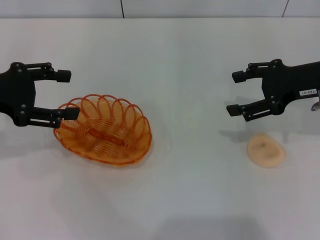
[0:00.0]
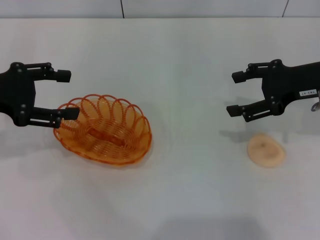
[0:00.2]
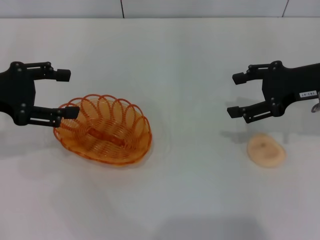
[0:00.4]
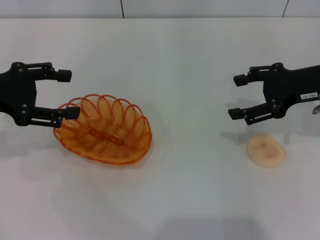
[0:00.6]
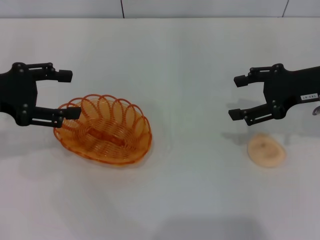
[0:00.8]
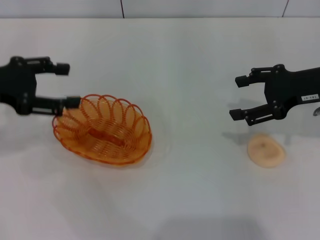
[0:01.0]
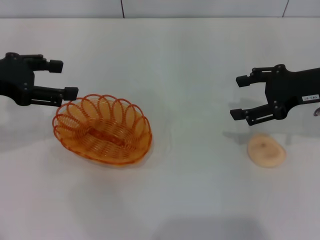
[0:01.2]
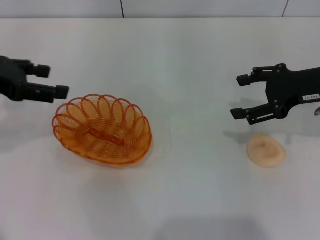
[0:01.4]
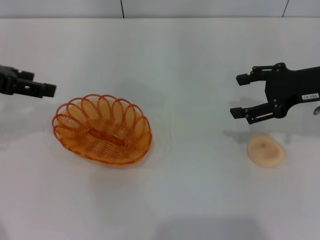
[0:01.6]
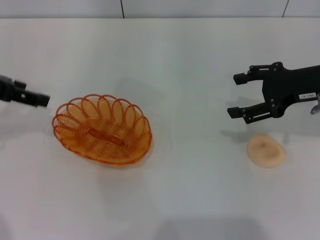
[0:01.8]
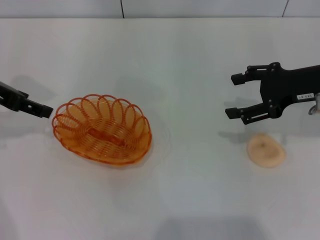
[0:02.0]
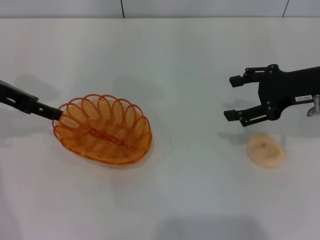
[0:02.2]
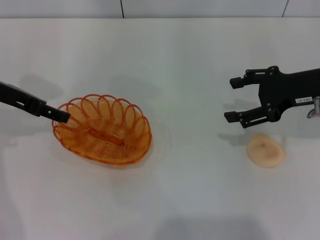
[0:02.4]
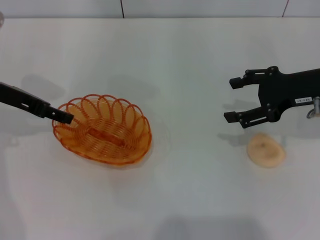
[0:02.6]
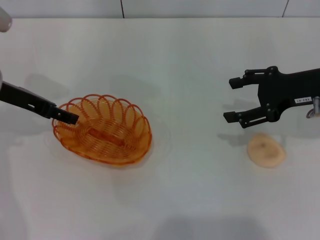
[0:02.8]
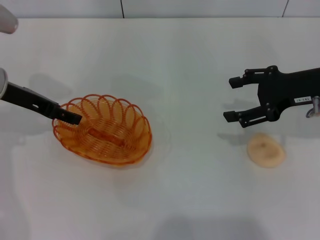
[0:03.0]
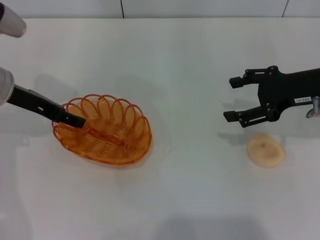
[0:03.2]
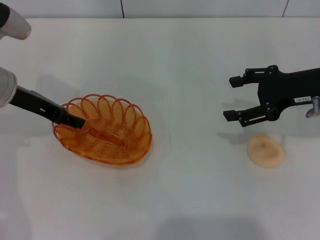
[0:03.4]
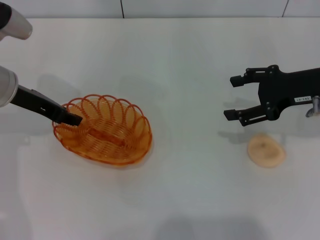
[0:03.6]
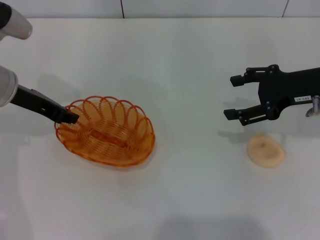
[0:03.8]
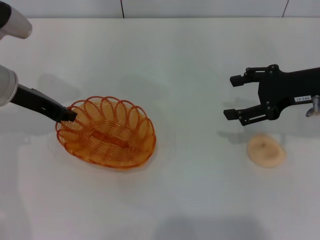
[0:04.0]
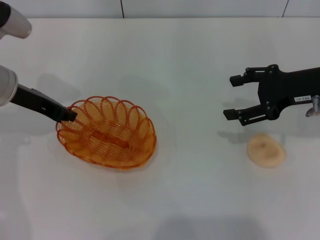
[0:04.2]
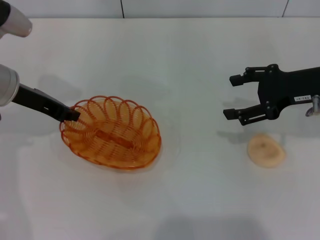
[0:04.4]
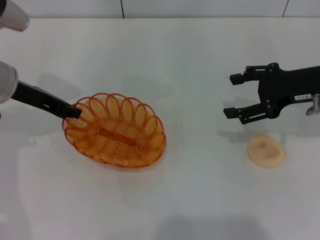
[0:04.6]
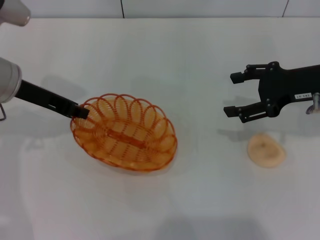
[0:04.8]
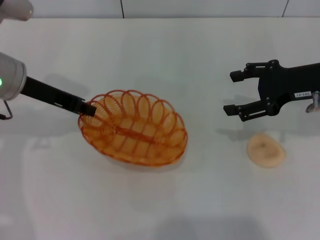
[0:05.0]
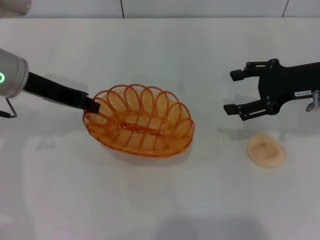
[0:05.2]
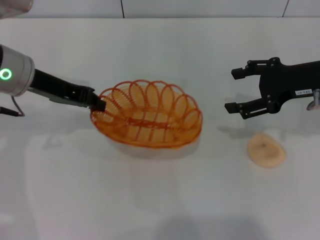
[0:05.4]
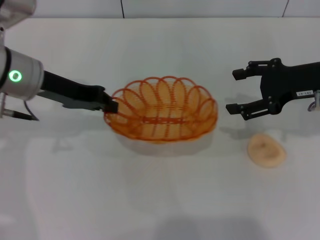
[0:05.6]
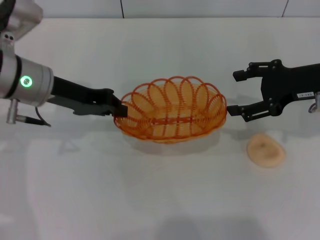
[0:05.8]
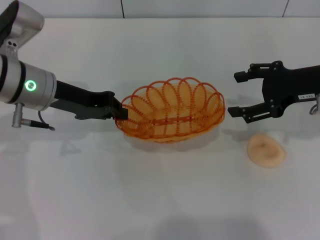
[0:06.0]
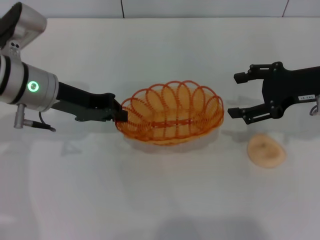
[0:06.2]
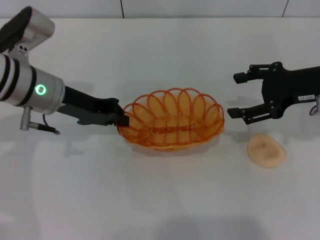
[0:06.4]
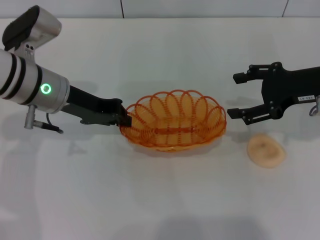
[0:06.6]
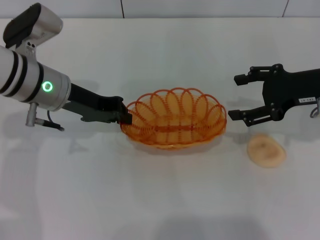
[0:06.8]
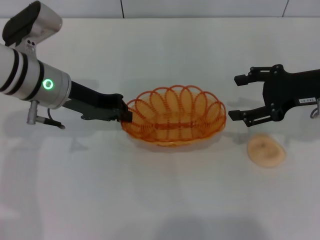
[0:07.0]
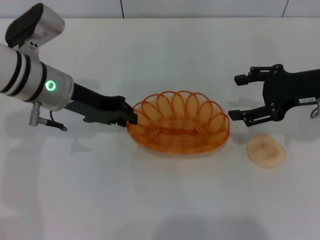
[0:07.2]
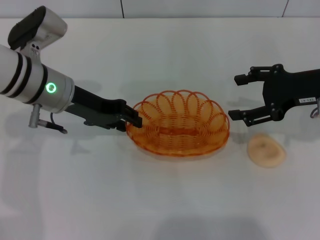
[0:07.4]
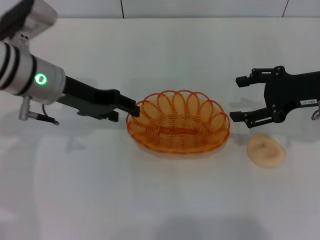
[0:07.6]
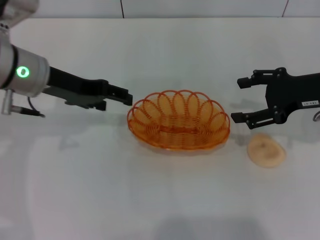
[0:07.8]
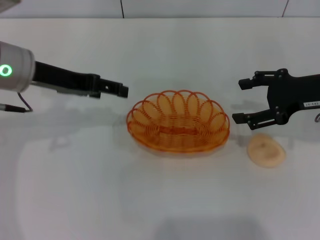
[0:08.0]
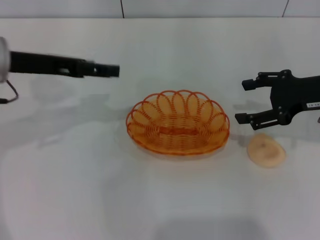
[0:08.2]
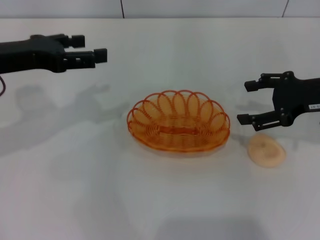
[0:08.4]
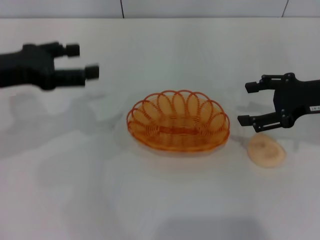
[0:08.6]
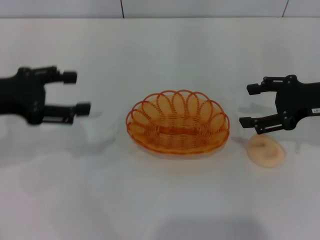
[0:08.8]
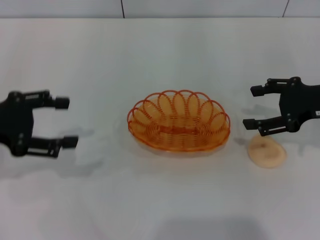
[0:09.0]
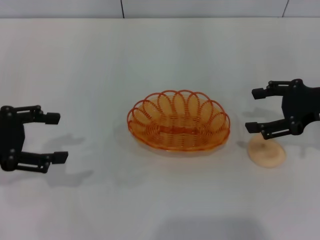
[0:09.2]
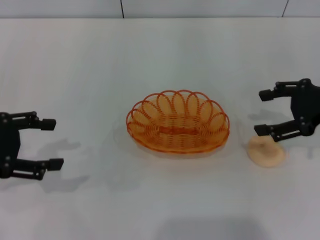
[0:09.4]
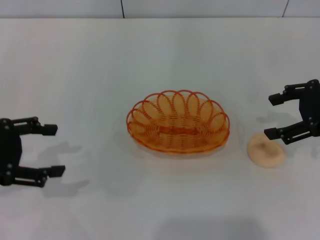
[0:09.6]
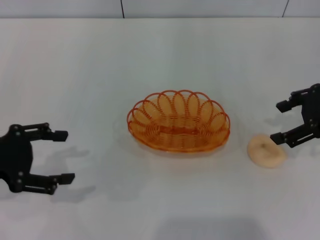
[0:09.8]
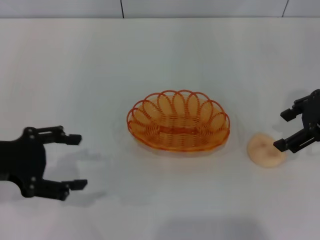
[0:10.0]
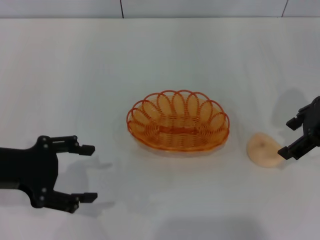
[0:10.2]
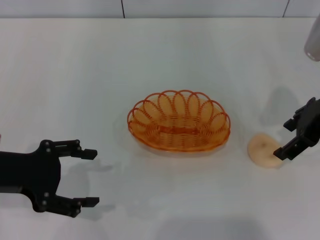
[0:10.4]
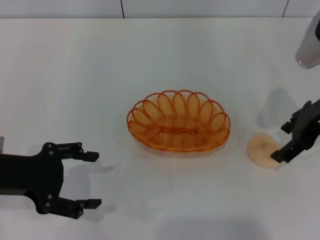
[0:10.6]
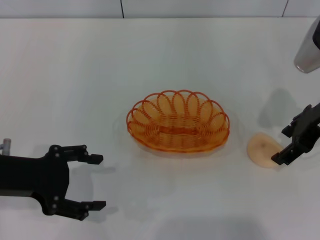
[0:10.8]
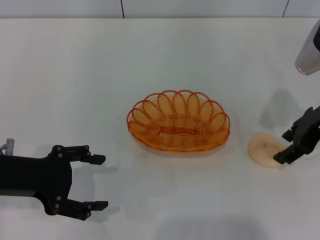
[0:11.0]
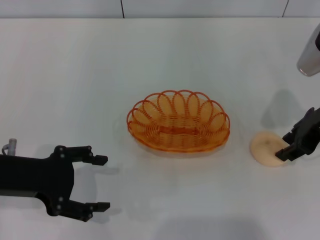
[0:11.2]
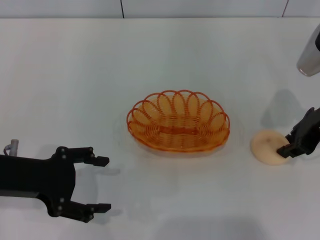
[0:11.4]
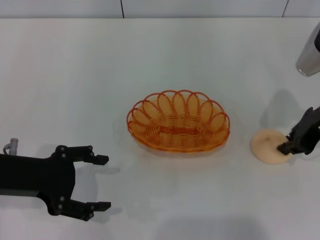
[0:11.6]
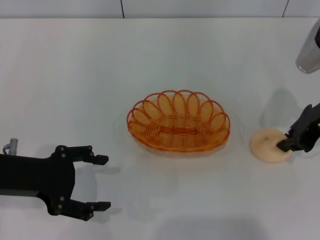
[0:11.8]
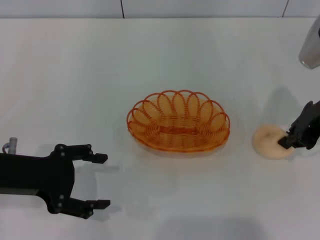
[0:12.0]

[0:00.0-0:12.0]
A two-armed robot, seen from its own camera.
Step, 0:00.0 to 0:06.0: Pick up the basket with the left gripper.
Step, 0:06.2 to 0:07.8: Place the basket in the center of view with the left gripper.
0:01.6 to 0:03.0: The left gripper heads downward, covering some 5 cm.
0:03.0 to 0:04.4: The left gripper closes its fingers.
0:06.0 to 0:07.6: The left gripper opens.
0:07.6 to 0:09.0: The left gripper travels to the left and backward by some 15 cm, and opens its fingers.
0:09.0 to 0:10.4: The right gripper ends up approximately 5 cm from where it was; the left gripper moves some 5 cm.
0:10.4 to 0:12.0: The right gripper closes its fingers.

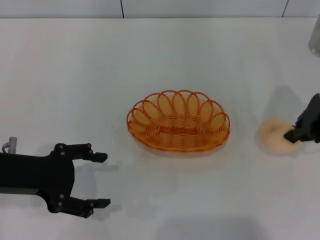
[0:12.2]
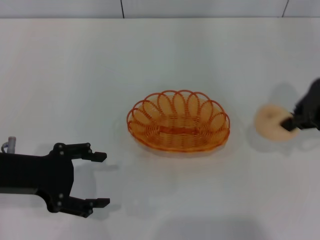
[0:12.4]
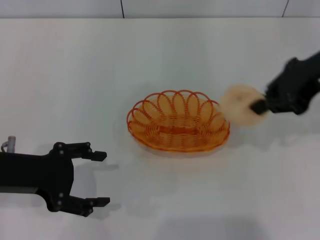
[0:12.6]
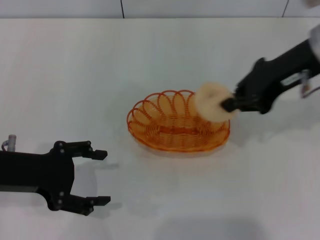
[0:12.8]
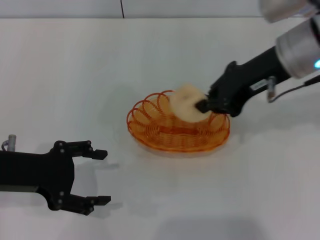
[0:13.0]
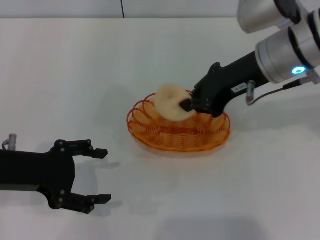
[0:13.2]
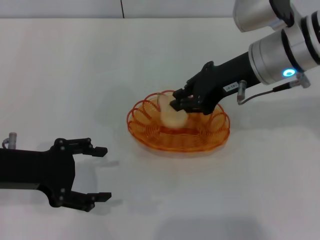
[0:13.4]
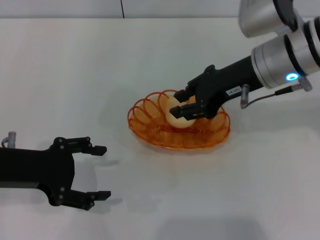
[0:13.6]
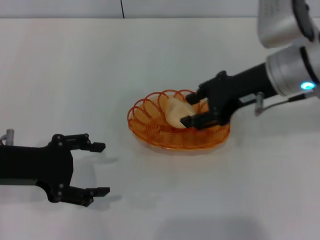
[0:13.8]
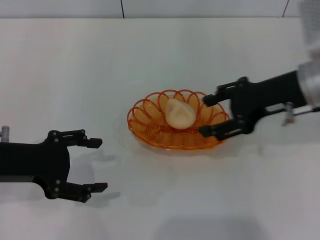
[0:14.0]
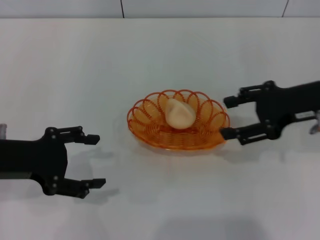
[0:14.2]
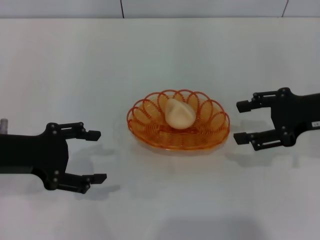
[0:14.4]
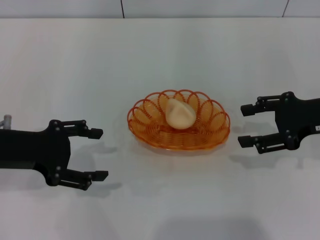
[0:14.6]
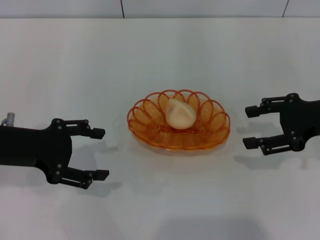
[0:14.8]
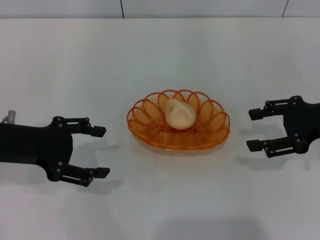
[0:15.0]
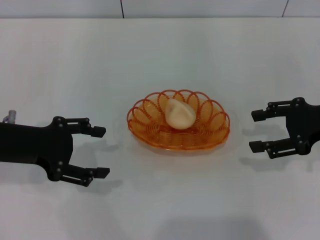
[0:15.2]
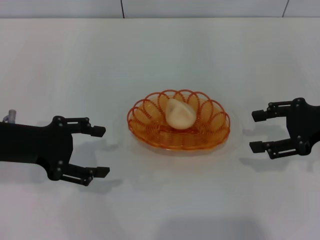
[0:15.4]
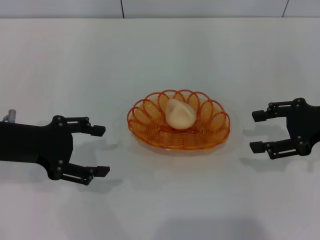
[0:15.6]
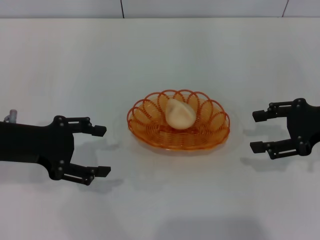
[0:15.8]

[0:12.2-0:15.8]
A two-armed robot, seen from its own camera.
Step, 0:12.4 to 0:14.0: Place the egg yolk pastry into the basket with the right gripper.
0:12.2 to 0:14.0: The right gripper opens up.
0:14.0 to 0:15.8: The right gripper travels to the right by roughly 10 cm.
